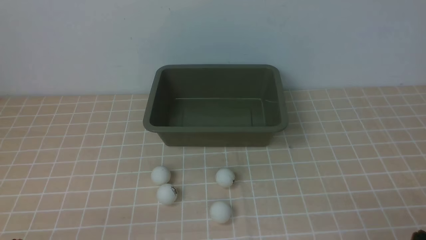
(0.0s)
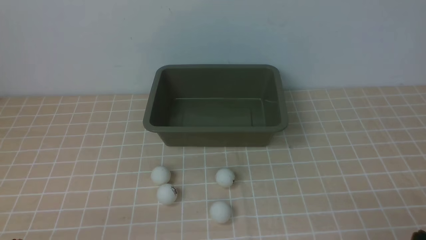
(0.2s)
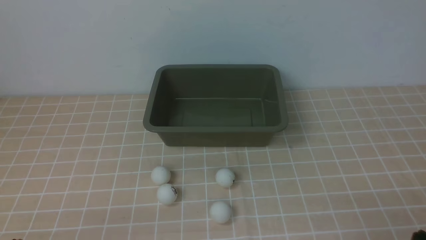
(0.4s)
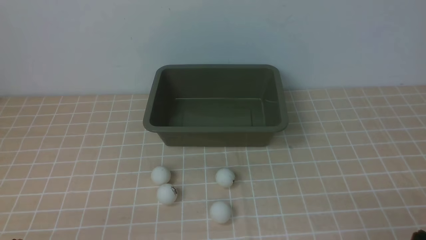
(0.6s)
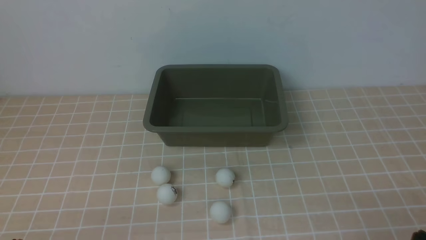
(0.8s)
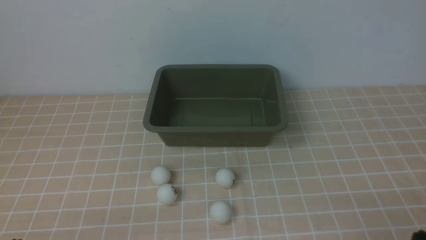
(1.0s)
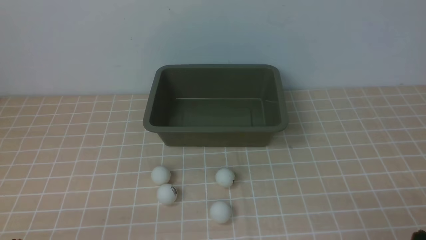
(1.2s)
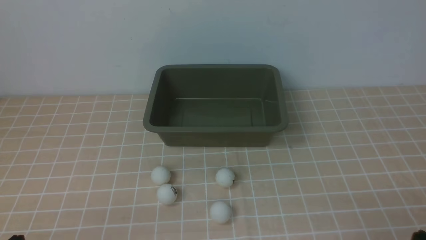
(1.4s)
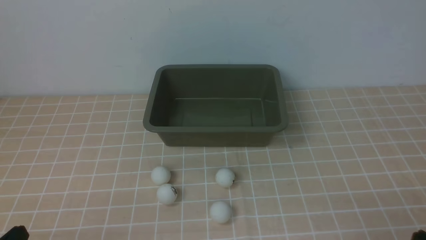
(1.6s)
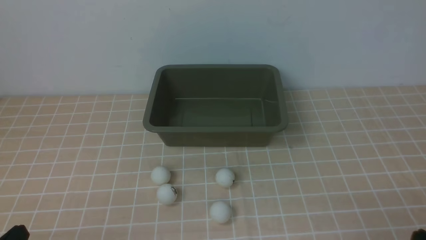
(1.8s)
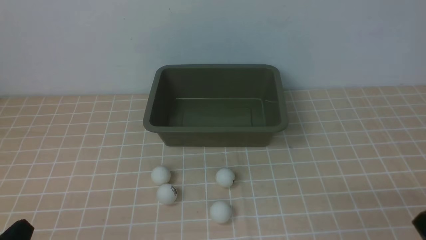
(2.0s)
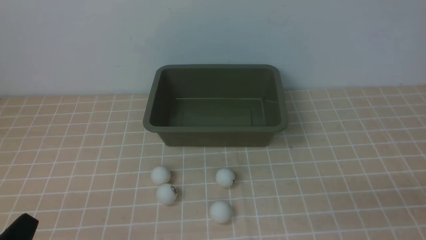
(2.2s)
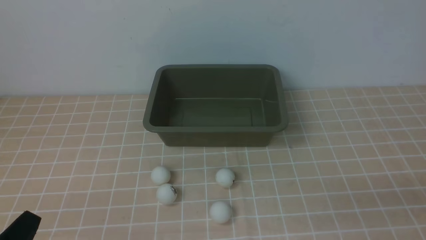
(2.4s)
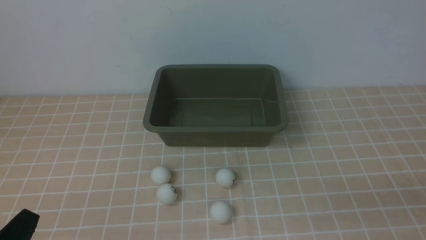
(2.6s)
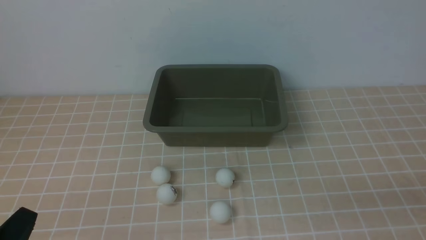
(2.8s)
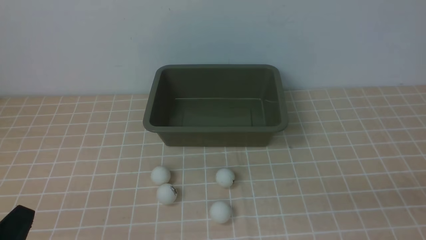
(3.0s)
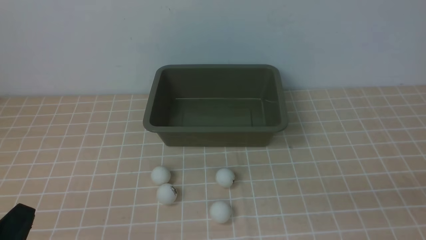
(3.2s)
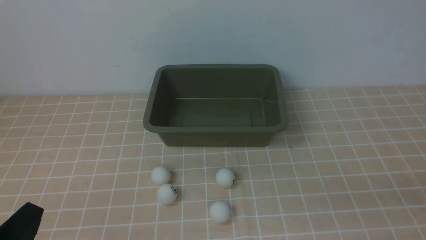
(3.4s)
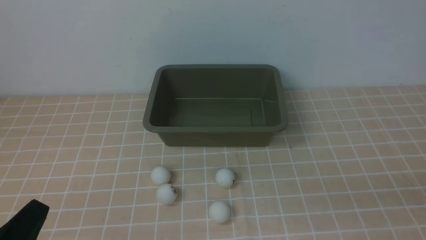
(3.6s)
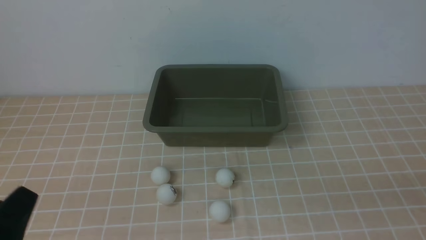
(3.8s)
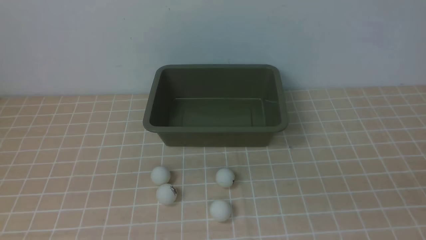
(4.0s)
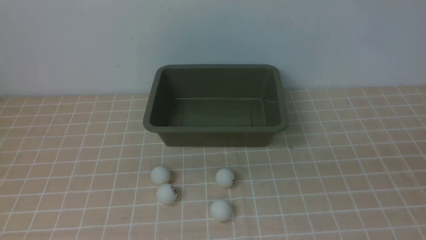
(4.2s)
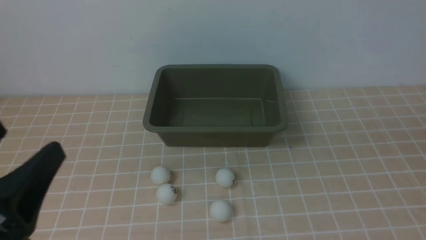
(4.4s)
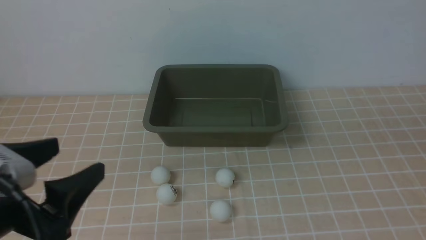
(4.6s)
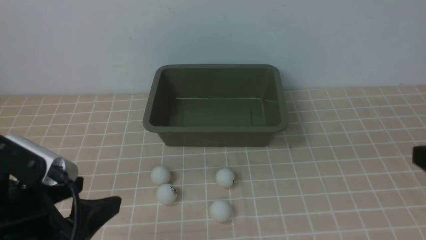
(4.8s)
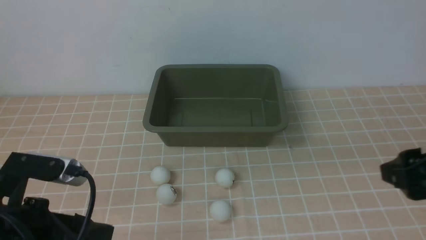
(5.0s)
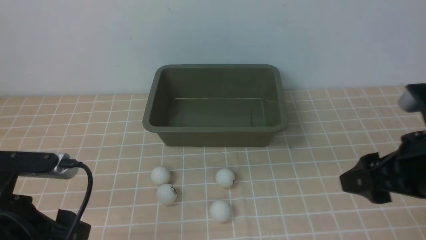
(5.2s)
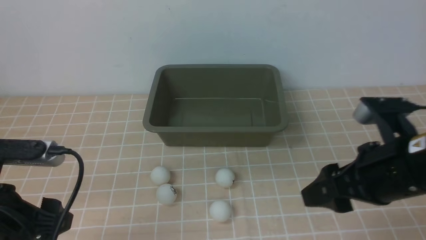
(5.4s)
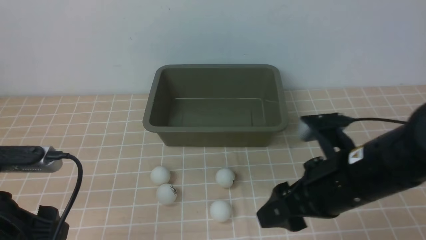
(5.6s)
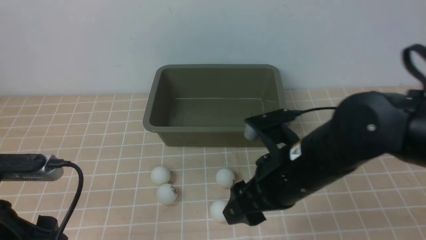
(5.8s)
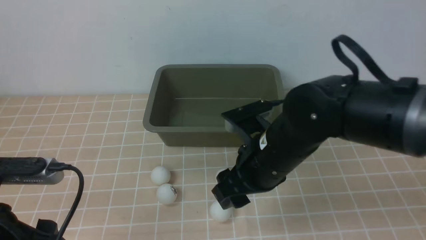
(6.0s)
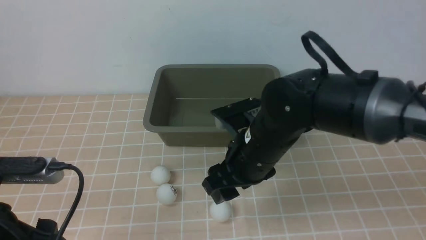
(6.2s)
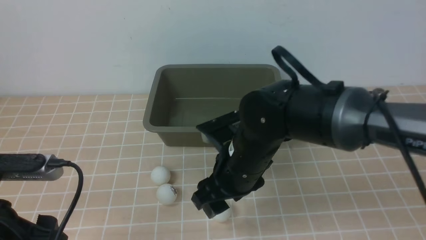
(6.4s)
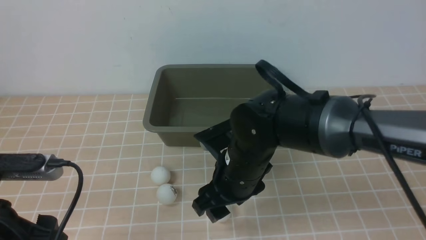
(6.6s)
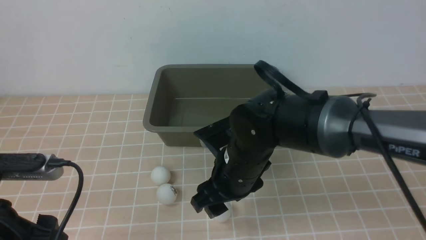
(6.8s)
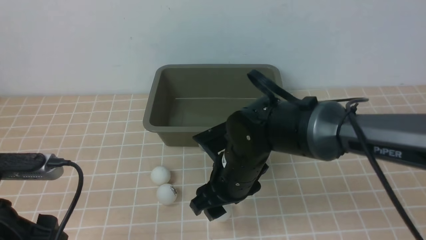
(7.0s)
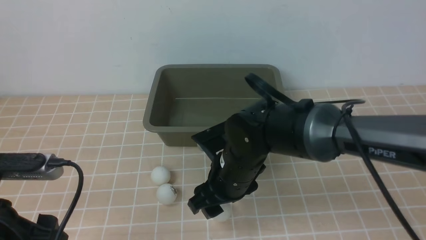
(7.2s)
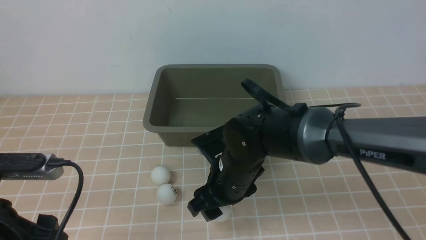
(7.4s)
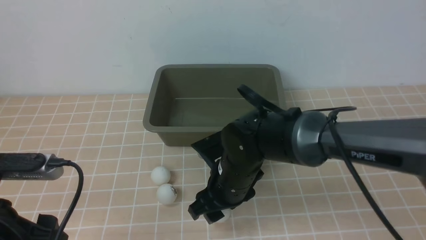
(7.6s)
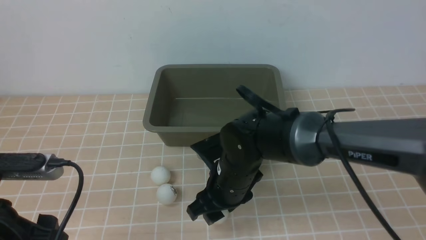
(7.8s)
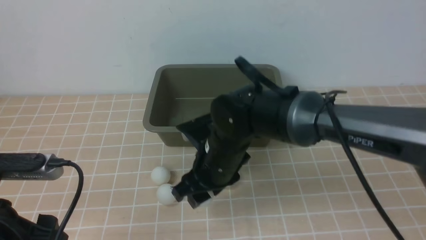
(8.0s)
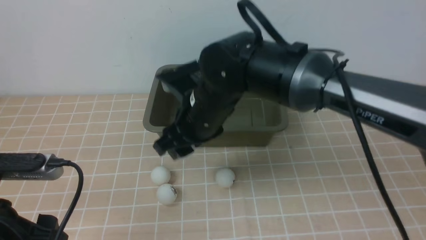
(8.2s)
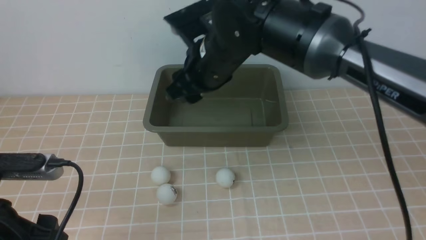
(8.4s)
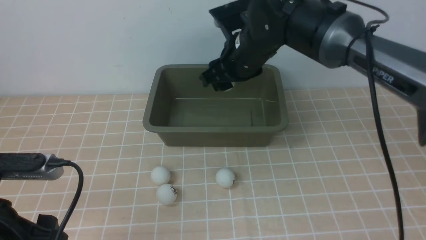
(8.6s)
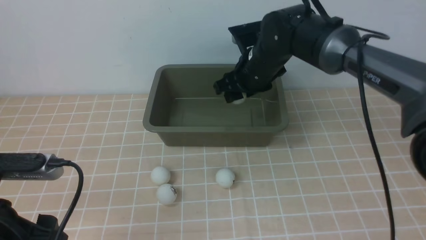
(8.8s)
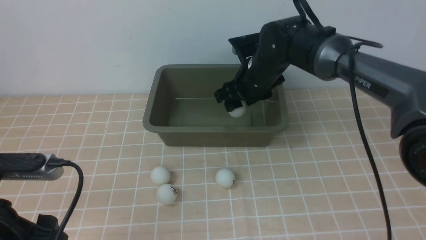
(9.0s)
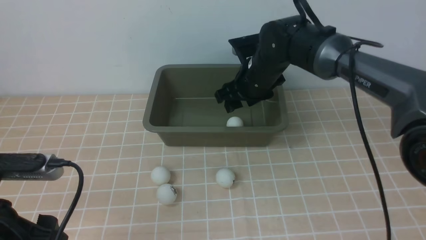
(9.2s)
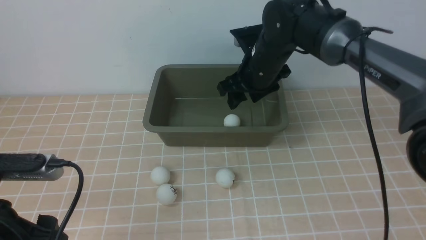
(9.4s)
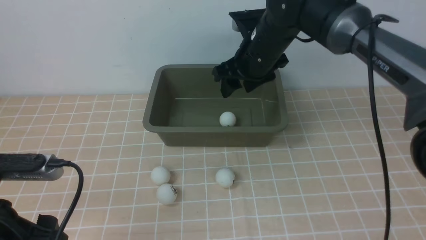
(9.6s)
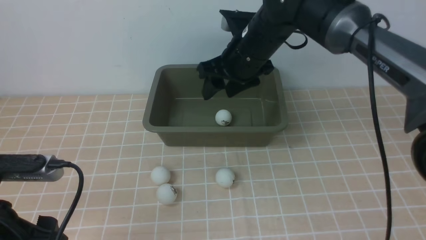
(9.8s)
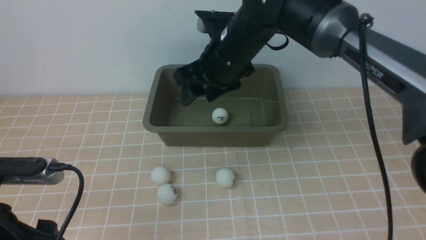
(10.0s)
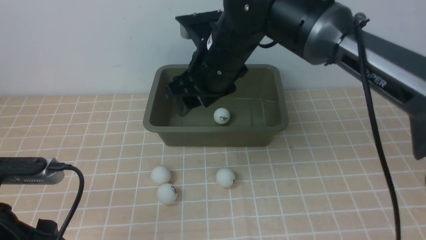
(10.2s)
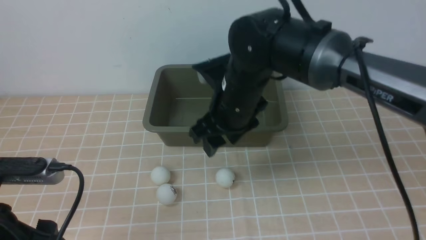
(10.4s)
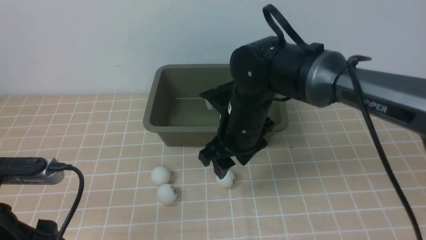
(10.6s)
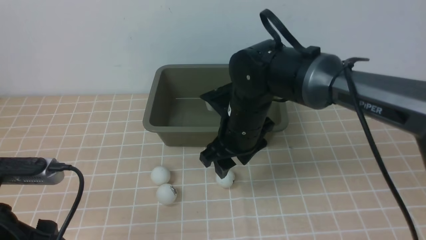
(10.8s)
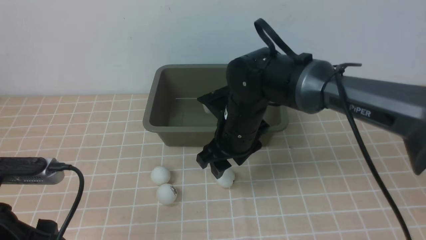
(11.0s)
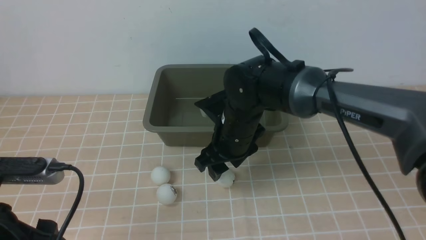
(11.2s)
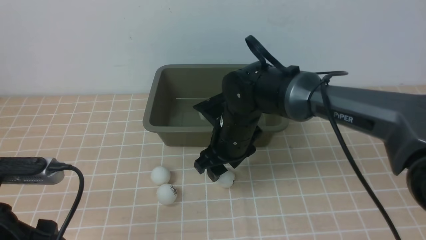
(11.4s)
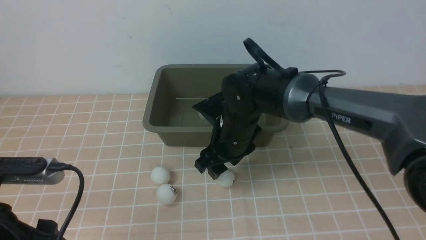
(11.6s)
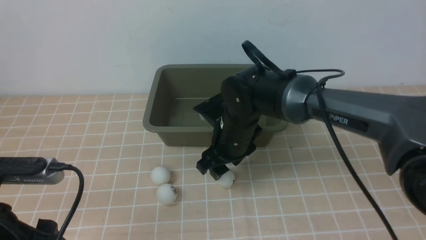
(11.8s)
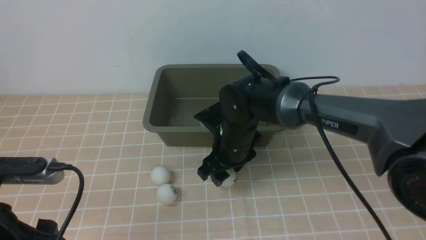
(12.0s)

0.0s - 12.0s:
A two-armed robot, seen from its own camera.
Step, 0.0s - 8.0s: use the right arm to clamp the table tennis ball closest to it.
Step, 8.2s - 9.2s: use the right arm to put the table tennis ball into the box.
3.0s - 4.4s: The left gripper goes some 15 cm upward, and opens its fingers.
4.4s - 6.0s: The right gripper goes about 30 cm to the left, forward and downward; the left gripper shifts some 10 cm forward and downward.
6.0s - 7.6s: The right gripper goes roughly 10 cm downward and to the left.
7.6s - 9.0s: The right gripper moves forward and upward, some 15 cm.
9.0s - 10.4s: The right gripper travels backward and to the left by roughly 10 cm.
10.4s - 12.0s: The right gripper moves downward, some 10 cm.

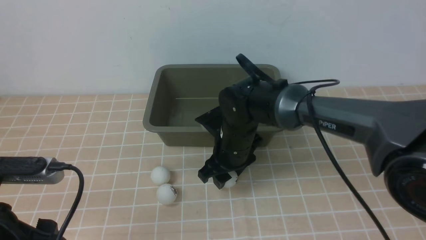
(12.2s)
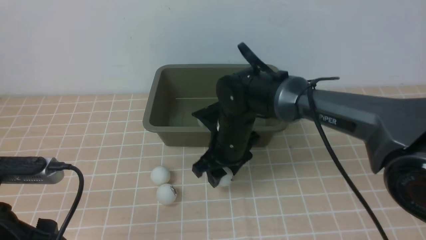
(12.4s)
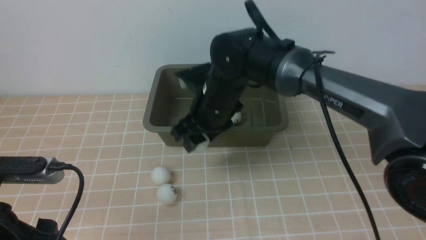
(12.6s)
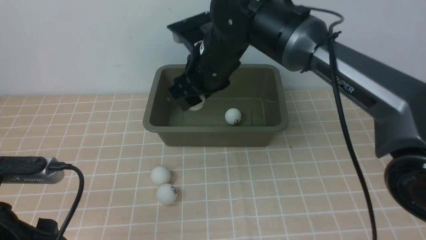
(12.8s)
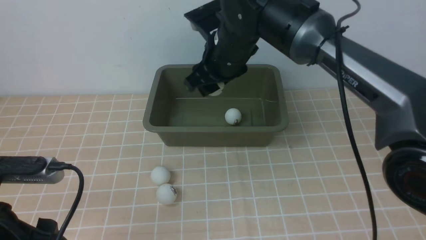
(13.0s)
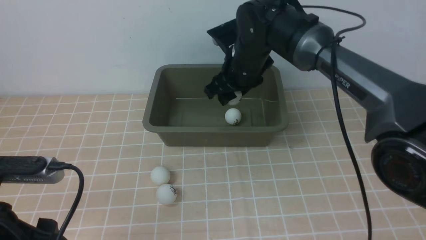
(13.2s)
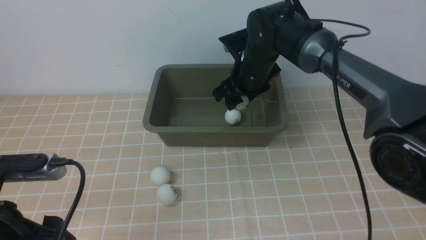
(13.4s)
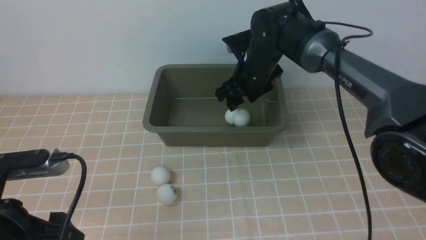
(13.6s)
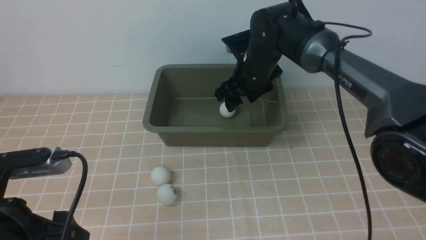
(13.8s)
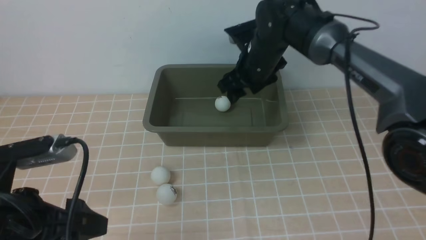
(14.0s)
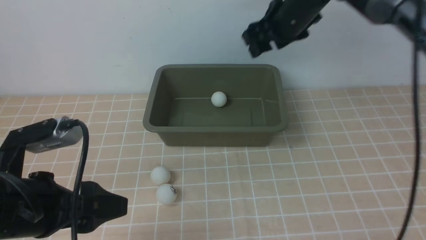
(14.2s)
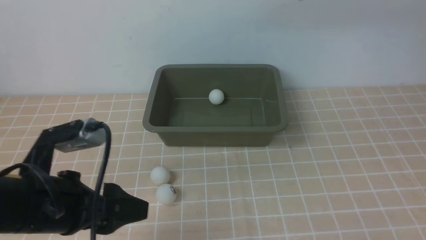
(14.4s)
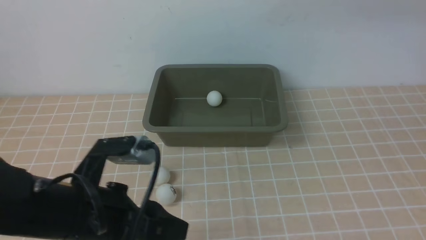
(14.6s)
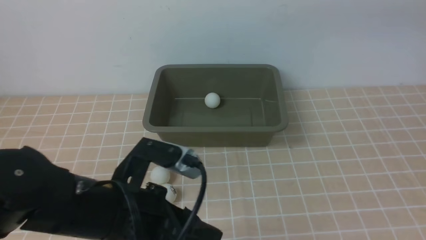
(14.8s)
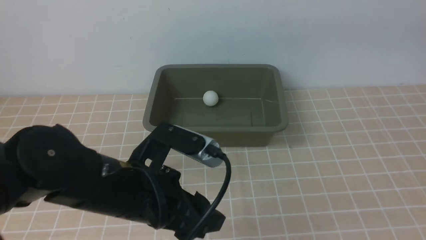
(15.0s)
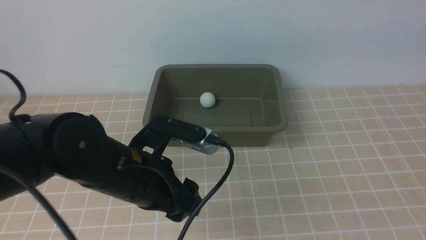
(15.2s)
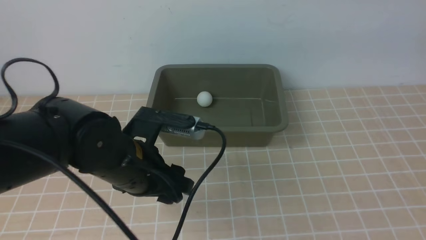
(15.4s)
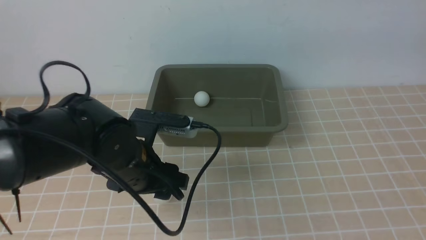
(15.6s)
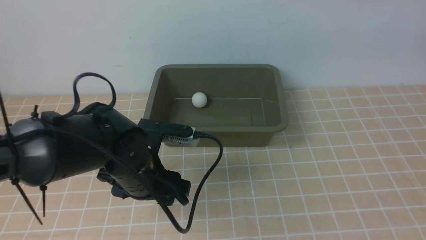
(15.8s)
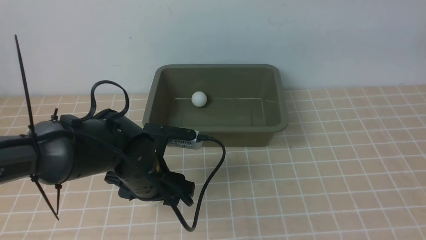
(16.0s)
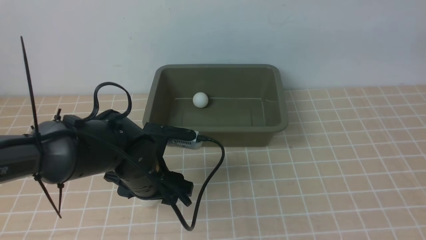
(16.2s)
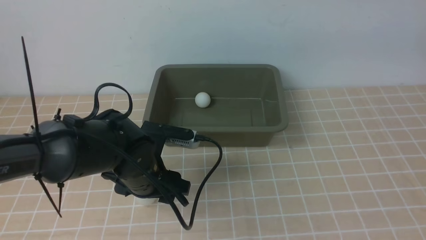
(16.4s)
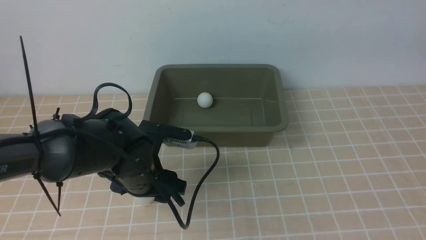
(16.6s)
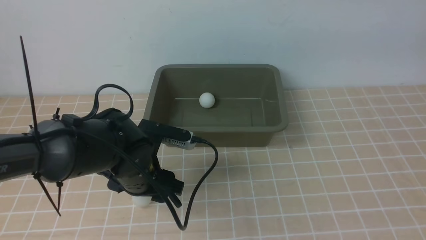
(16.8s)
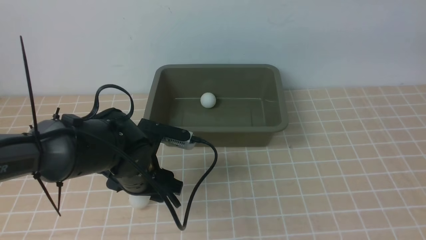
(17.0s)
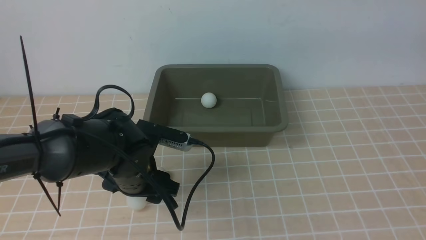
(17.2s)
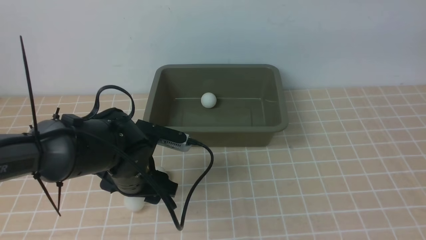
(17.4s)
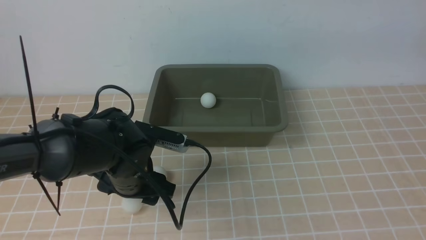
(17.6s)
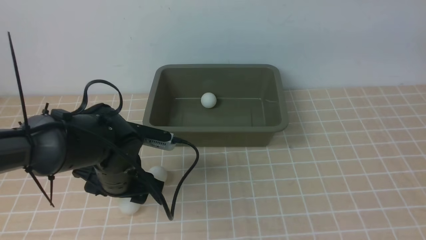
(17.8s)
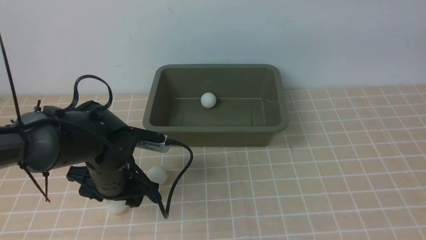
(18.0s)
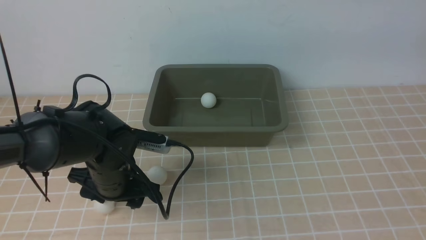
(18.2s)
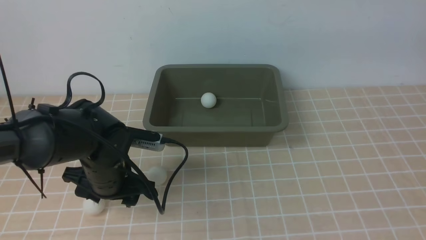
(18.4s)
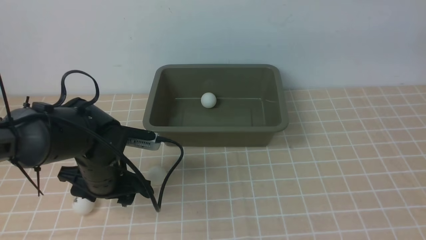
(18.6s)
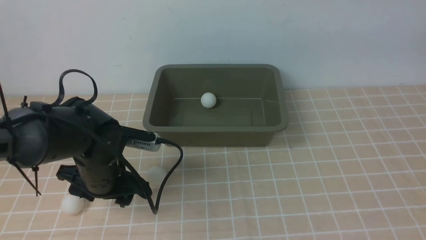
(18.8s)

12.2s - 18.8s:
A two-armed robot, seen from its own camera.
Step, 12.8s - 13.4s: use the right arm to put the table tennis ball into the box.
12.2s - 13.8s: The right gripper heads forward and upward, covering some 10 cm.
13.8s - 15.4s: The right gripper goes roughly 40 cm upward, backward and to the right. Meanwhile the left gripper goes roughly 15 cm to the right and forward.
15.4s - 17.2s: The left gripper is displaced downward by approximately 5 cm.
17.2s - 18.8s: The left gripper shifts some 5 cm to the left.
